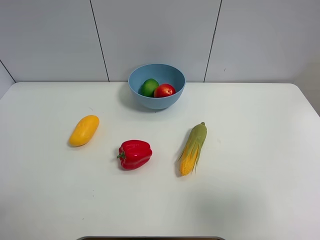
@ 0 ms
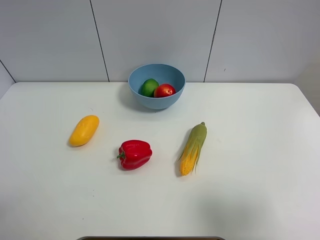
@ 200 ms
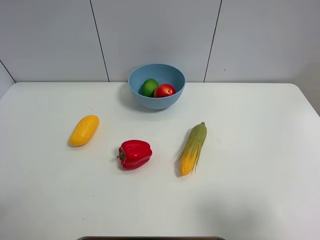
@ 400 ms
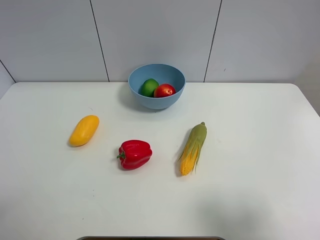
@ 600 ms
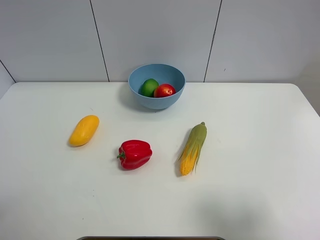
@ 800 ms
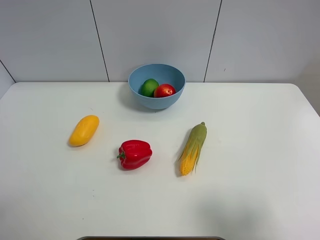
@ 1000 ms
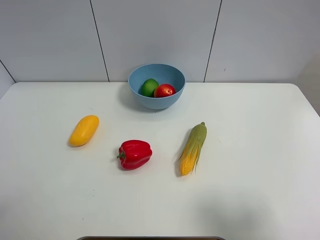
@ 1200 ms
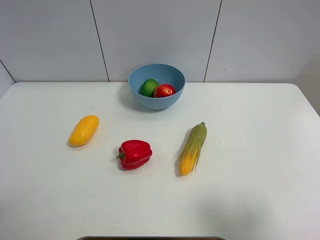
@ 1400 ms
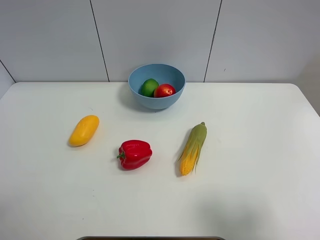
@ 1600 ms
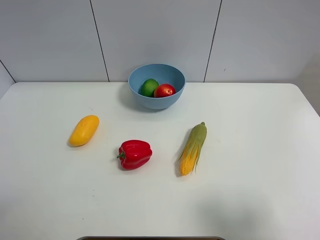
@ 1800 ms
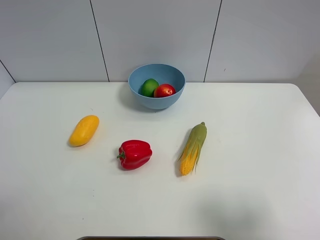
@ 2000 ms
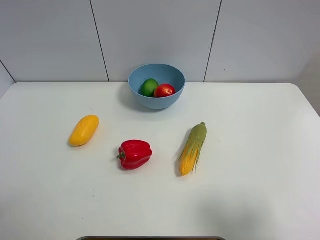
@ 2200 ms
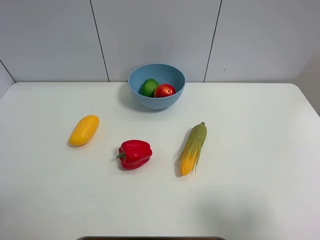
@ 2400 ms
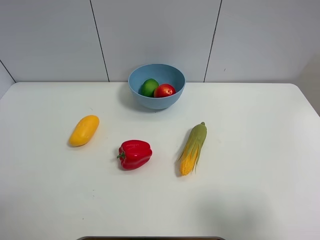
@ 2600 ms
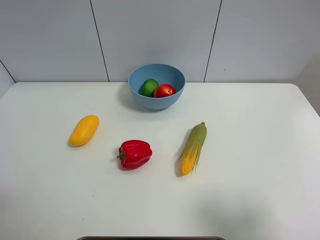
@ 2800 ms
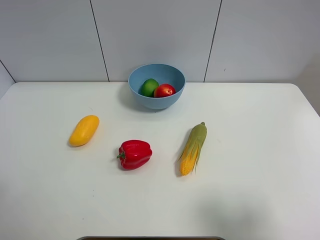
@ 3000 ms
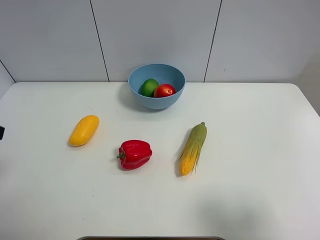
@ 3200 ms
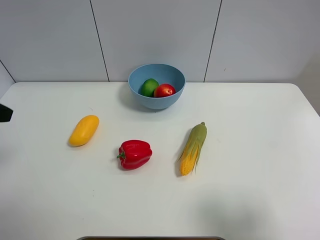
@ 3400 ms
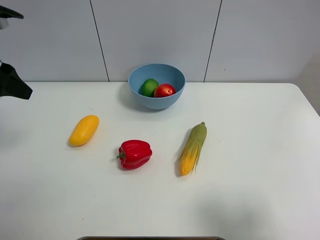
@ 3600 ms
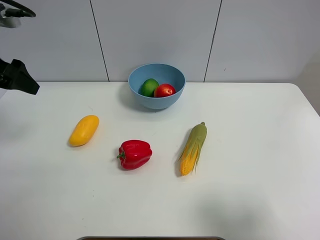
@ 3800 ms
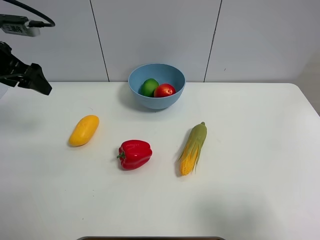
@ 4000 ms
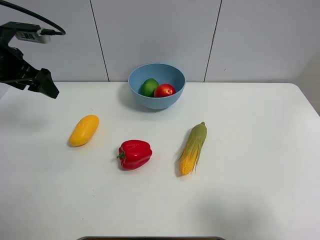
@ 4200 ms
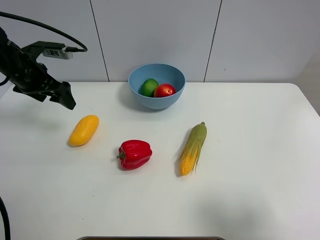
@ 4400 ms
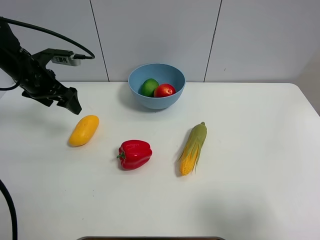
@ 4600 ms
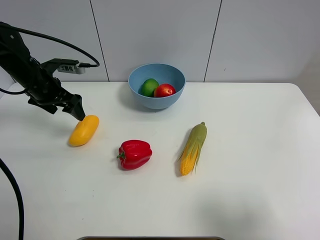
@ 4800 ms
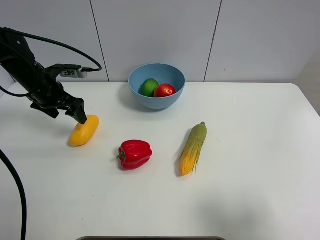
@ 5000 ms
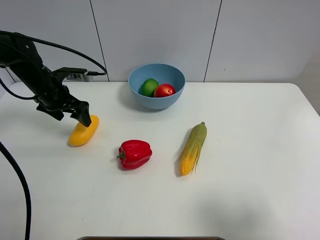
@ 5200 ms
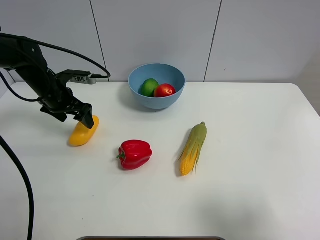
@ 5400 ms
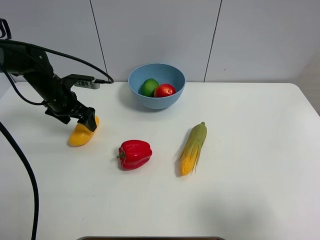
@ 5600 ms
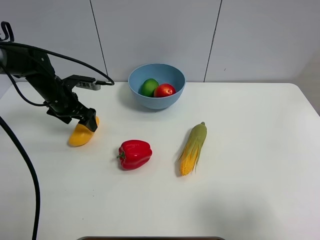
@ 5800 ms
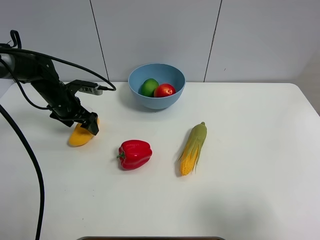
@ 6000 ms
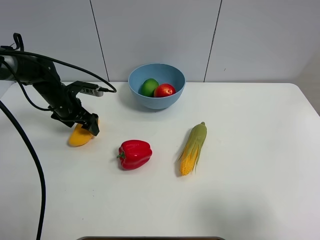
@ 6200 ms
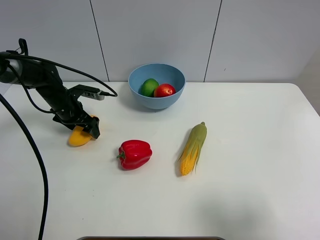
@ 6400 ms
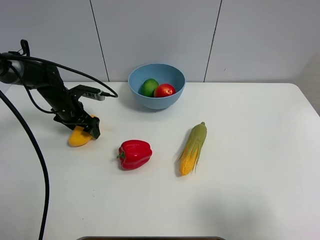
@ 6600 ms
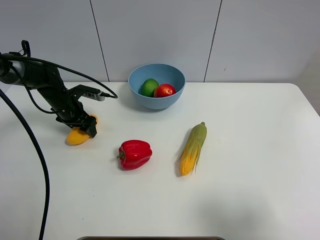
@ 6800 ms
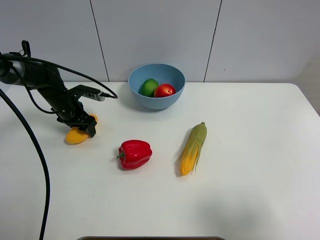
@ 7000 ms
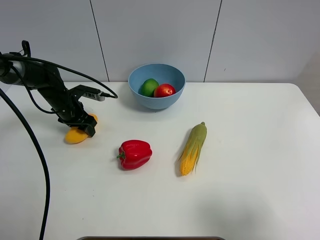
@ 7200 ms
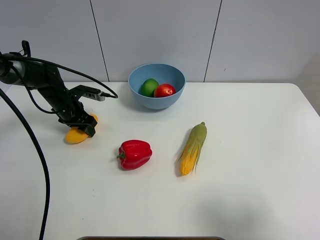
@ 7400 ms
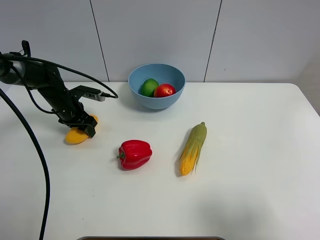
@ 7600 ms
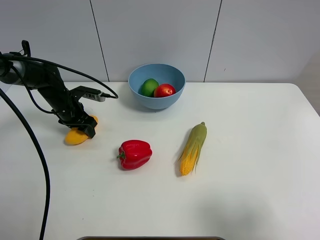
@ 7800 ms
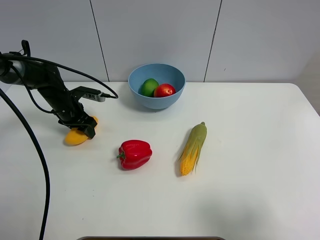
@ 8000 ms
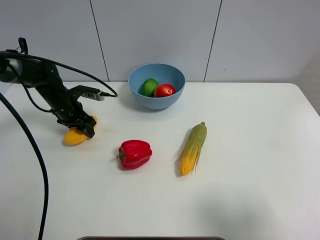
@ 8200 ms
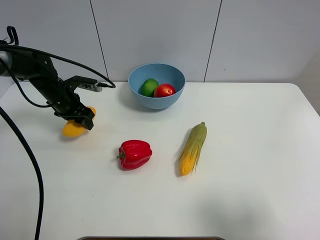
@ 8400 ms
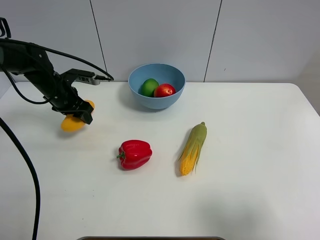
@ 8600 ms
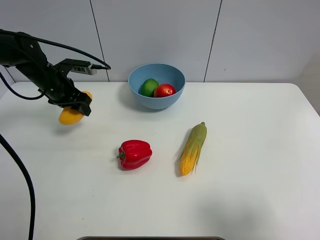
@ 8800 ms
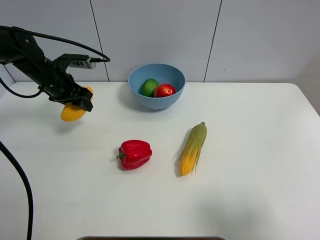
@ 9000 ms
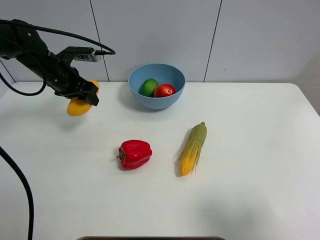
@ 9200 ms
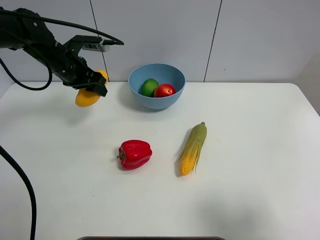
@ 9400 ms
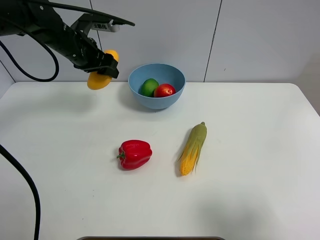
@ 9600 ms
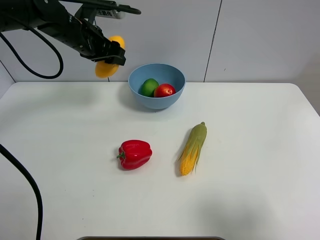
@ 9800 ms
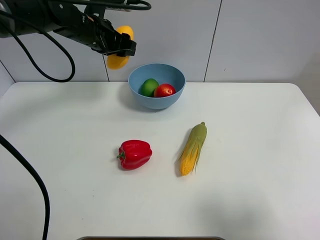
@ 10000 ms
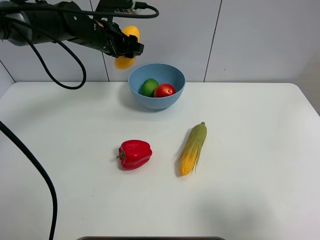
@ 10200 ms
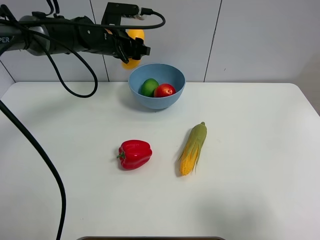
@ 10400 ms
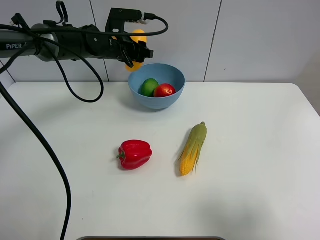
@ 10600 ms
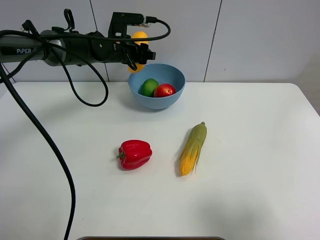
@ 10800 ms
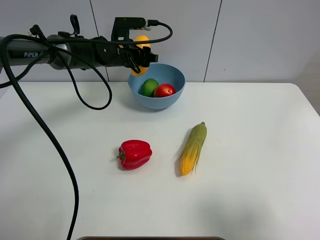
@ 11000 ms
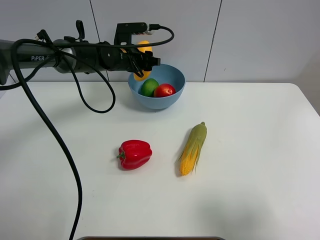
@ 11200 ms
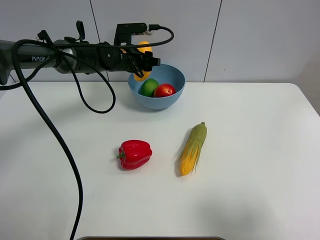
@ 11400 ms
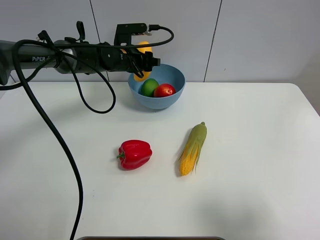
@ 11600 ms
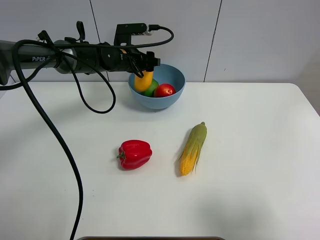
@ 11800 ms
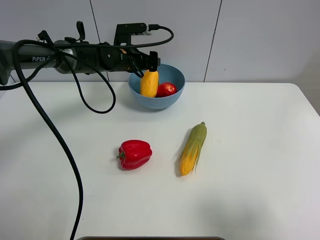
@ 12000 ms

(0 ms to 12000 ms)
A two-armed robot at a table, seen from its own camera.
Task of the whole recording: Put the three fruits on the table into a bowl.
Step, 0 ms - 7200 ms: Grasp the mango with left gripper.
3000 ms - 4400 ms: The left gripper moves forward, roughly 30 cm.
4400 ms - 6000 ms: The left gripper heads downward, covering some 10 cm.
6000 ms - 7600 ms: The left gripper closes its fingers.
7600 ms - 9000 ms: The left gripper moves upward, roughly 10 cm.
9000 ms - 10400 ms: The left gripper goes some 15 cm to the right and forward.
10400 ms - 12000 ms: The left gripper ends up roughly 5 cm from where it was, and opens.

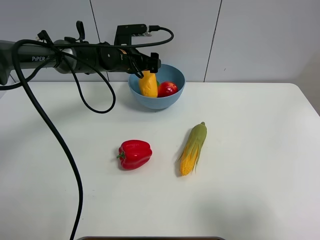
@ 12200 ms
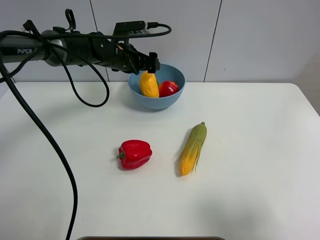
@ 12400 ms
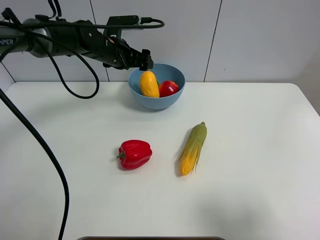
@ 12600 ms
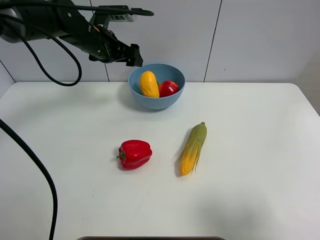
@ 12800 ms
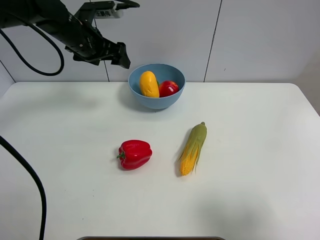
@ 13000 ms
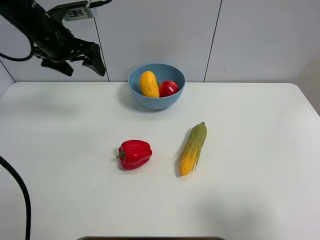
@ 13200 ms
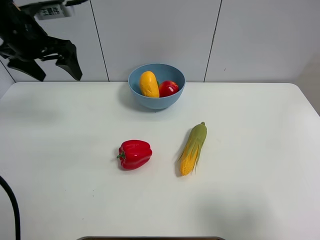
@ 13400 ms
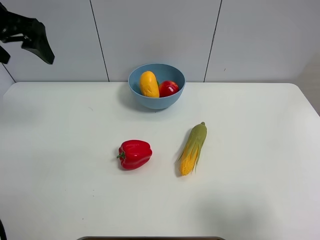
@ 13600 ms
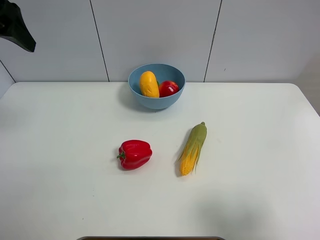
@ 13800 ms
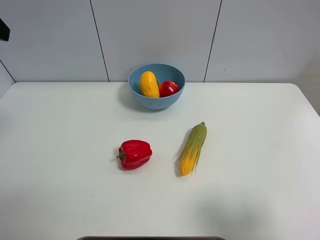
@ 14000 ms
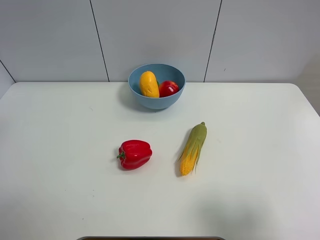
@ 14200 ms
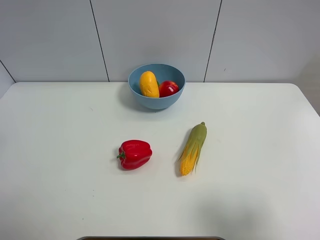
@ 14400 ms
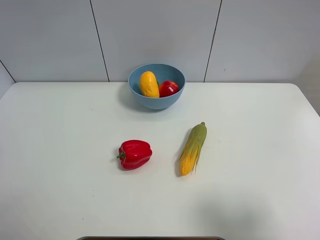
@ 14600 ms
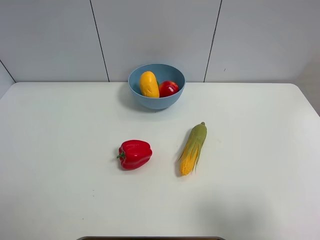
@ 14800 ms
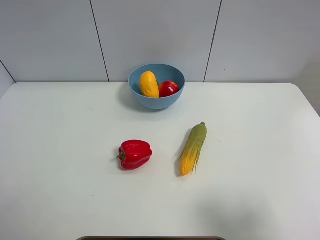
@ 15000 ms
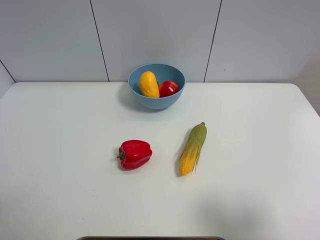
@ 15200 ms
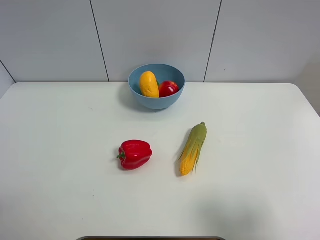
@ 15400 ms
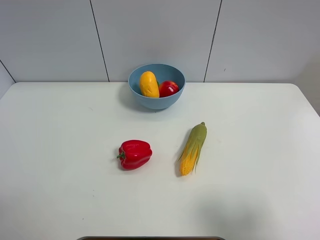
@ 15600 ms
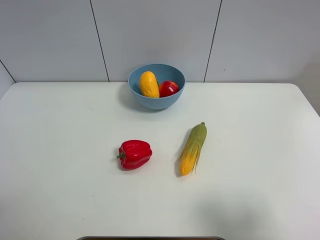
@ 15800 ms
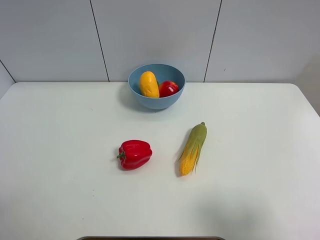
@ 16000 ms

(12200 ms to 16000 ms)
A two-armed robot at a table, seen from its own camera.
Task of the whole recording: Put the three fruits on the table into a bowl.
12200 ms - 13400 ms: The left gripper heads to the left, upward and backward, covering about 25 cm.
13400 ms - 14800 ms: The left gripper shifts roughly 30 cm backward.
